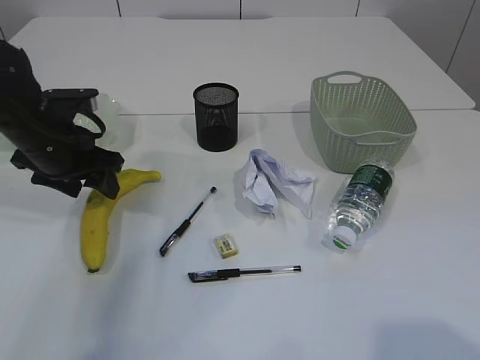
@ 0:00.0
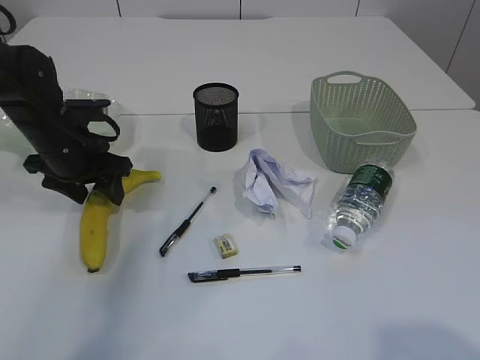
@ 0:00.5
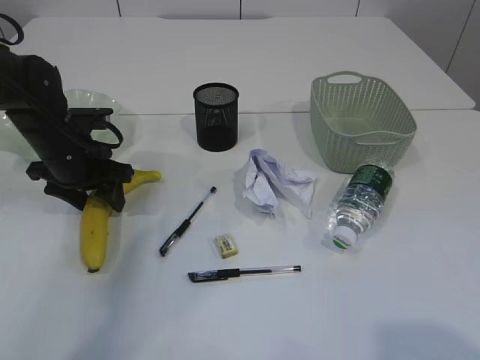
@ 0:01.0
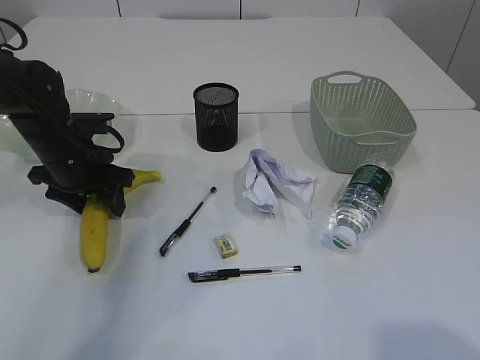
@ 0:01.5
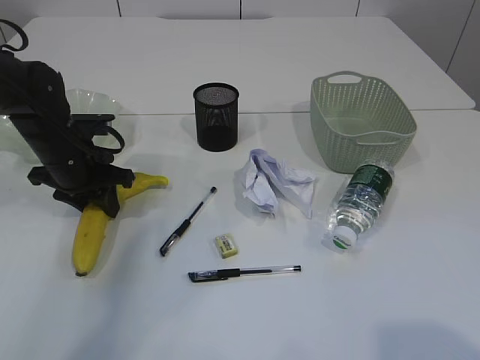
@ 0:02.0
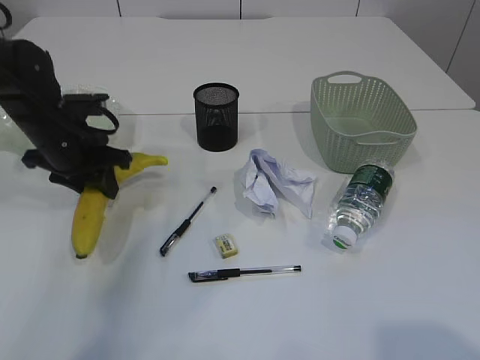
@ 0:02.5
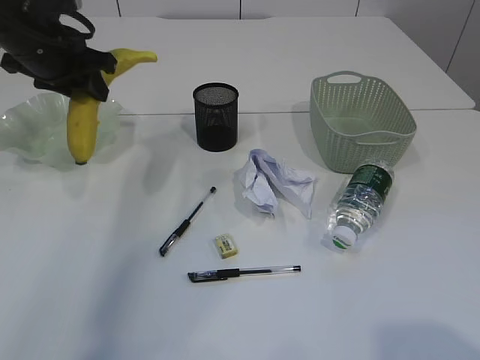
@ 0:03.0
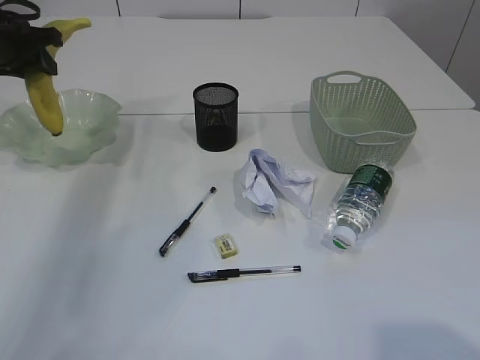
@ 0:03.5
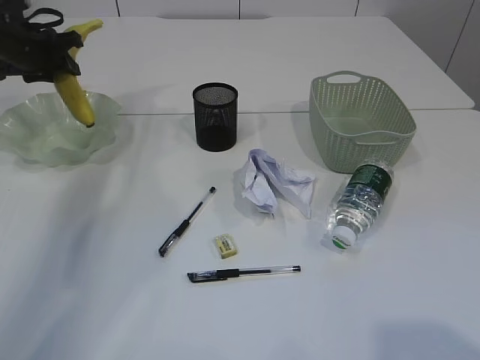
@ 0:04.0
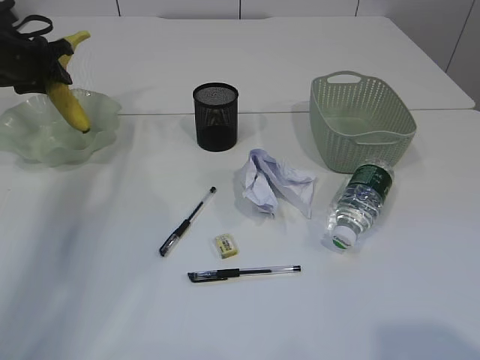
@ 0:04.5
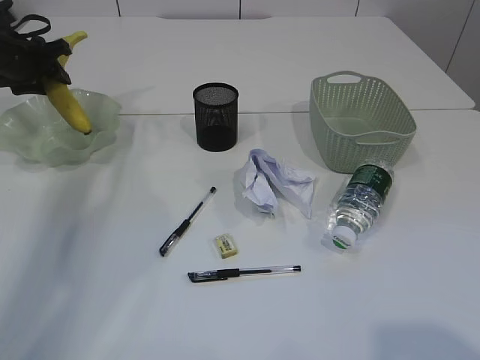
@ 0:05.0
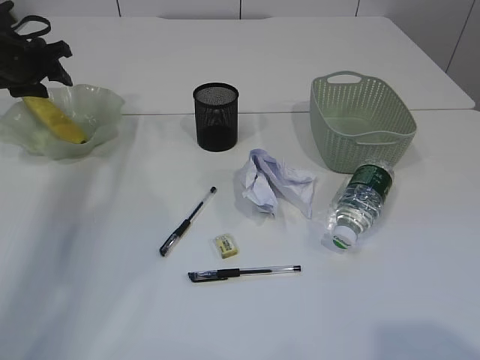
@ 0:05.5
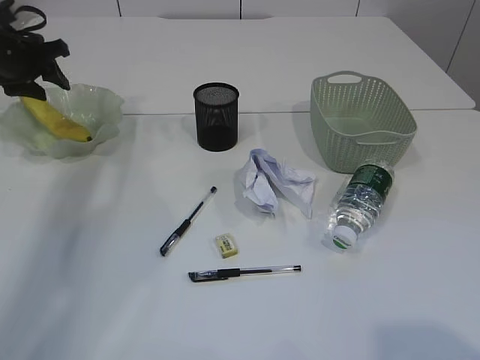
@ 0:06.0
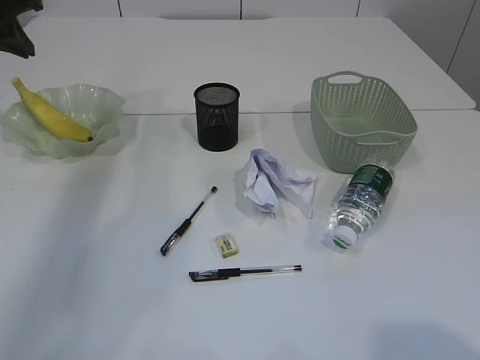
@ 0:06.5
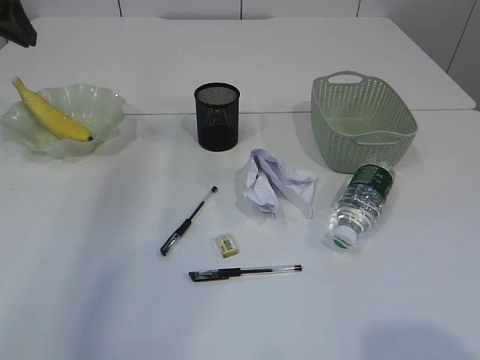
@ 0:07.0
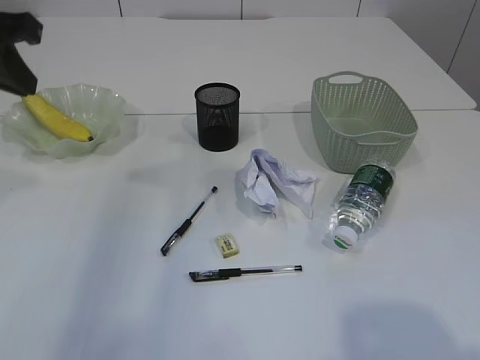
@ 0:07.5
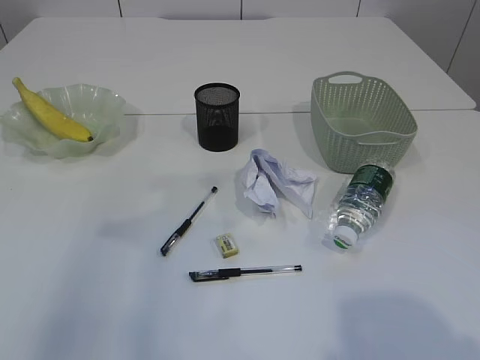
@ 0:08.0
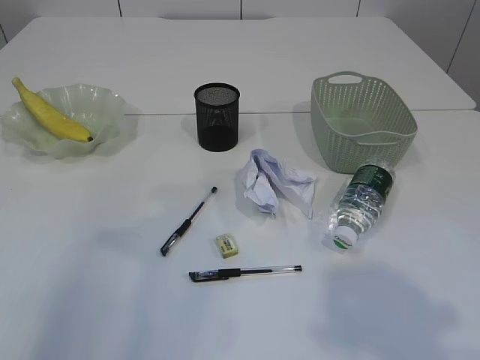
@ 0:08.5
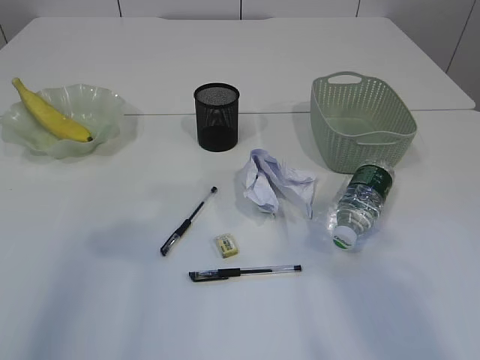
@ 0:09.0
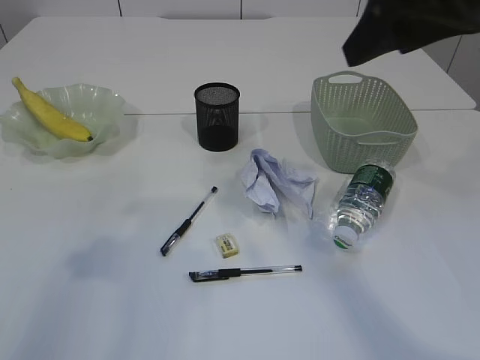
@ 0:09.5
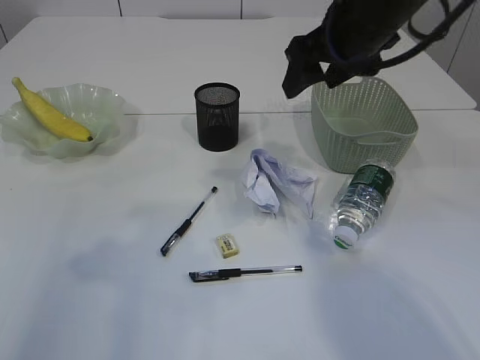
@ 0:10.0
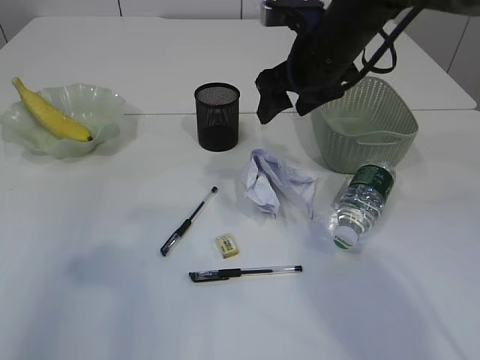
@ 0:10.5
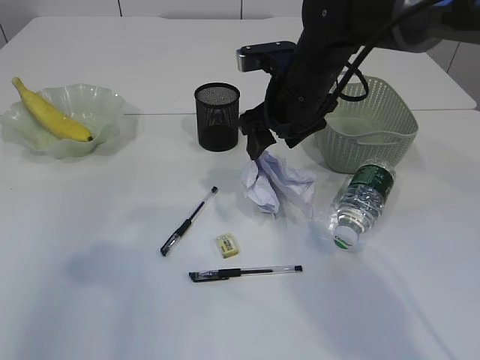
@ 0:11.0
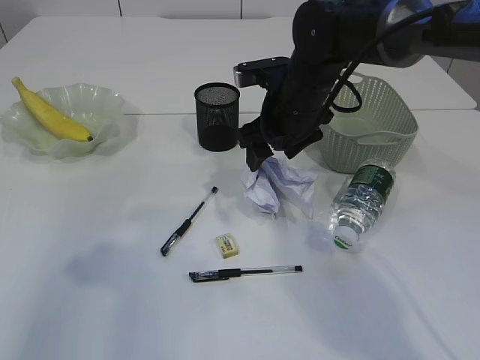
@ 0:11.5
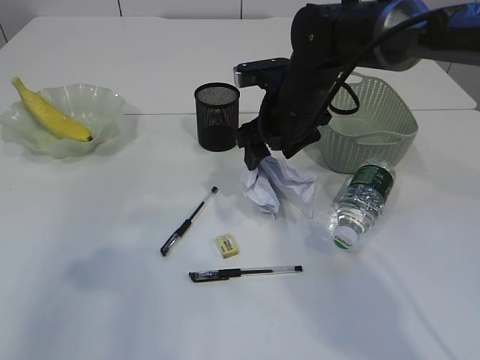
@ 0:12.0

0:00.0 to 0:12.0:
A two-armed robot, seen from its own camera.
Step, 0:03.0 to 0:06.0: Place the banana in the plate.
0:00.0 to 0:02.0: The left gripper shifts by approximately 5 cm, and closes up.
0:02.0 to 0:04.0: The left gripper heads forward, to the left and upward, covering approximately 20 cm.
0:04.0 to 0:06.0: The grippers stay close to where they were, moving slightly.
0:06.0 to 0:08.0: The left gripper moves backward and upward, about 30 cm, and closes up.
0:08.0 to 0:10.0: The right gripper travels forward by approximately 30 cm, while the left gripper moves about 5 cm, and opens its fingers.
0:10.0 to 0:12.0: The right gripper moves downward and to the left, some 15 cm.

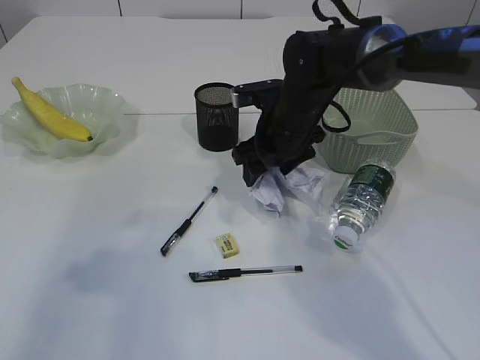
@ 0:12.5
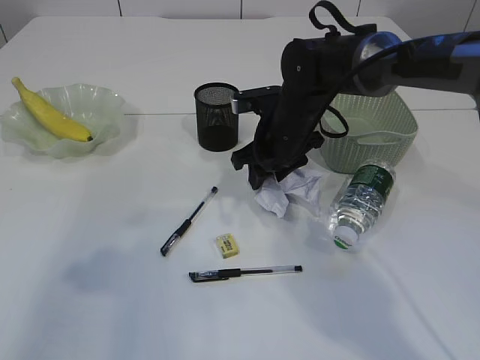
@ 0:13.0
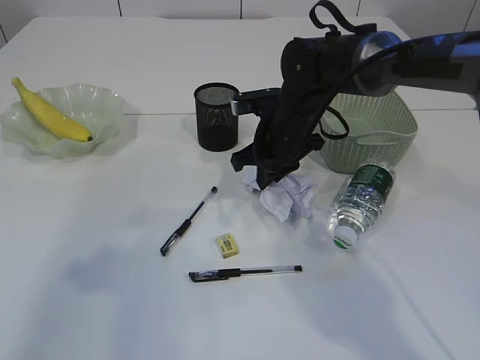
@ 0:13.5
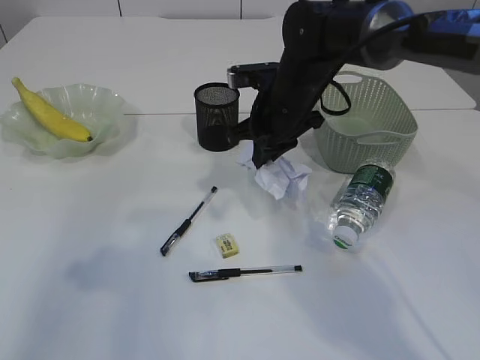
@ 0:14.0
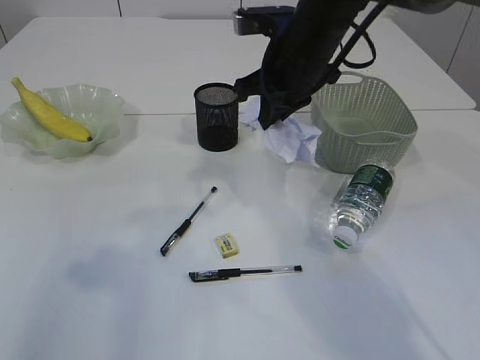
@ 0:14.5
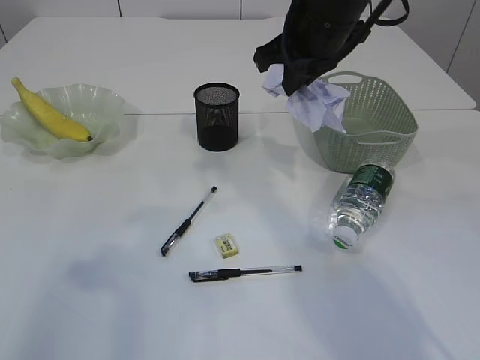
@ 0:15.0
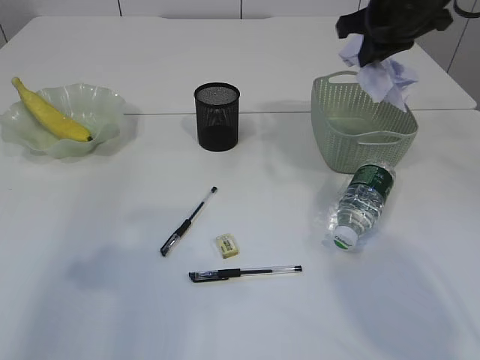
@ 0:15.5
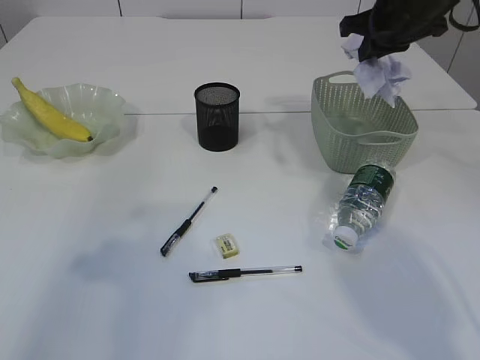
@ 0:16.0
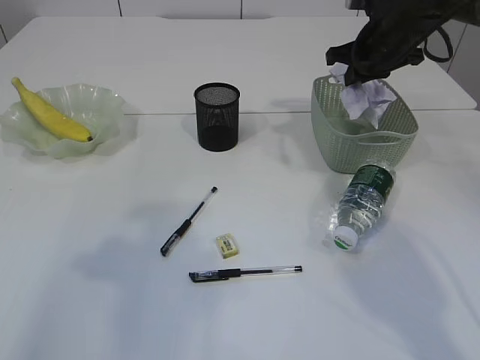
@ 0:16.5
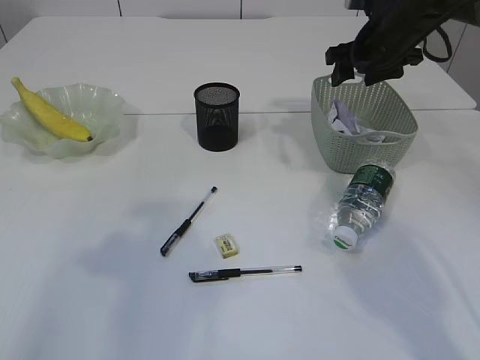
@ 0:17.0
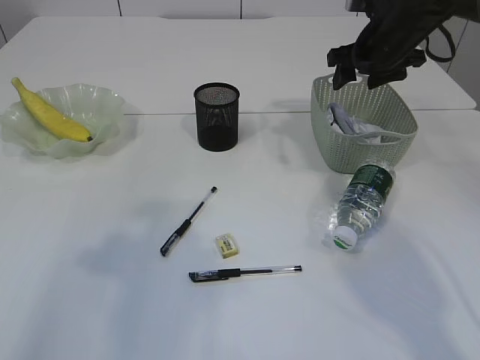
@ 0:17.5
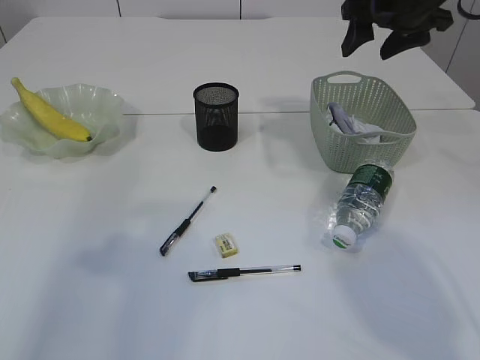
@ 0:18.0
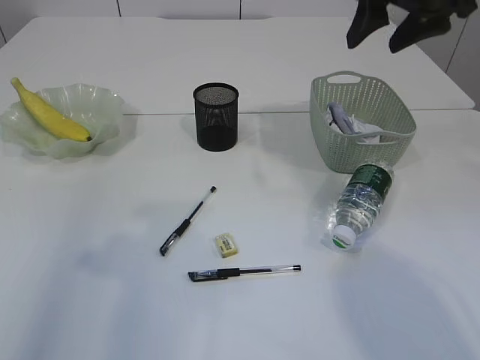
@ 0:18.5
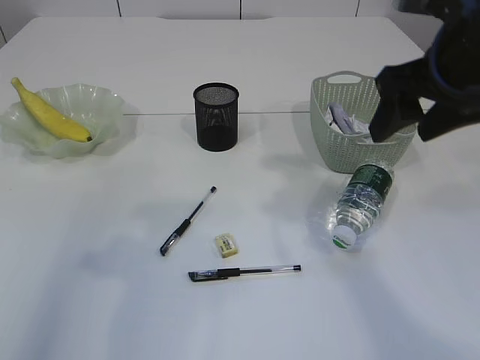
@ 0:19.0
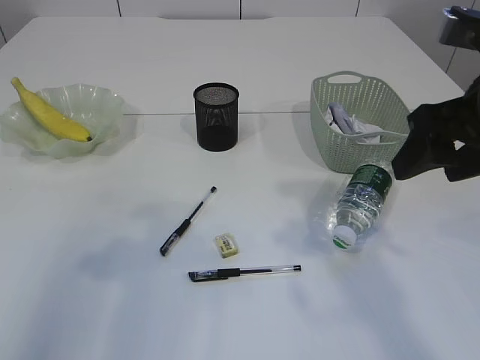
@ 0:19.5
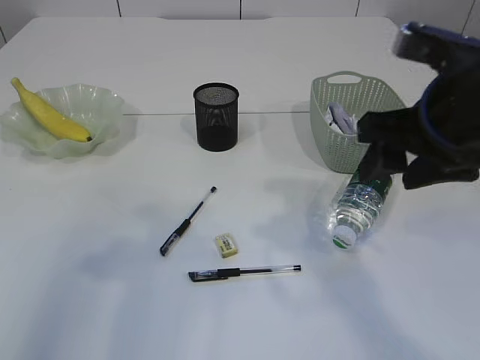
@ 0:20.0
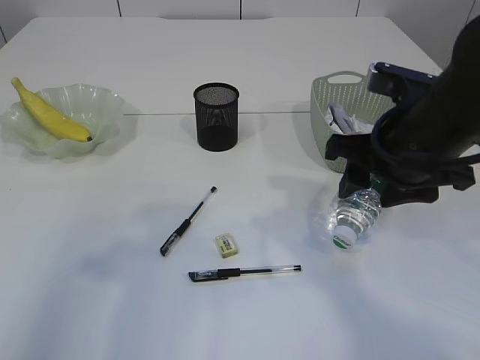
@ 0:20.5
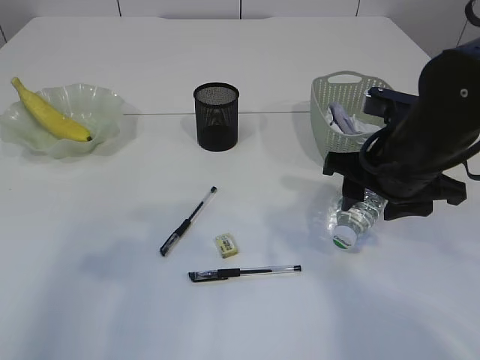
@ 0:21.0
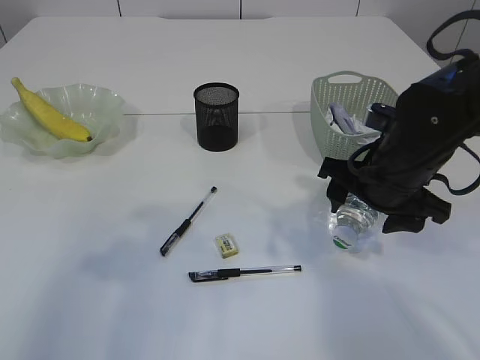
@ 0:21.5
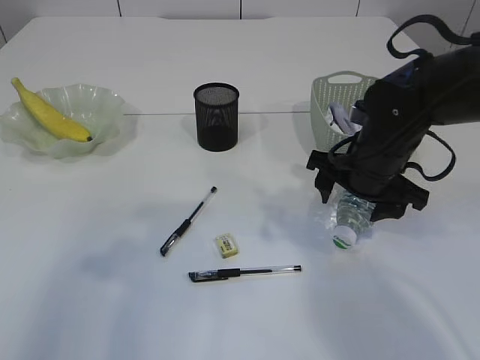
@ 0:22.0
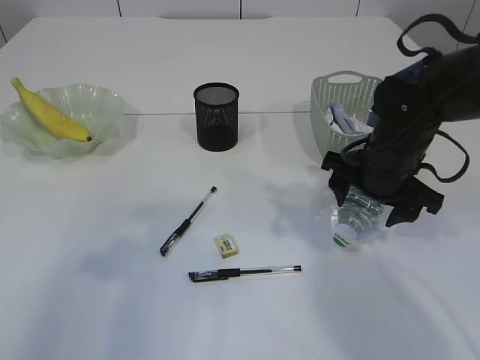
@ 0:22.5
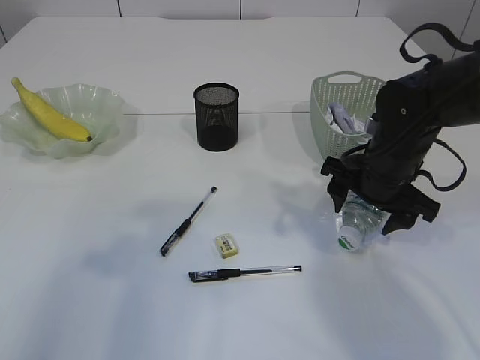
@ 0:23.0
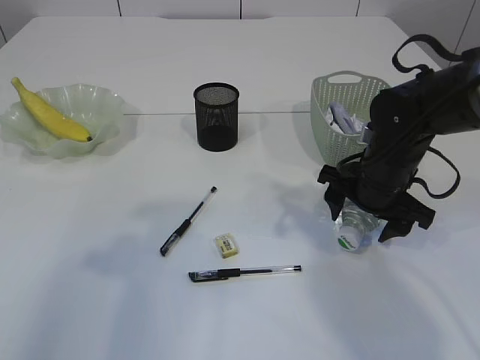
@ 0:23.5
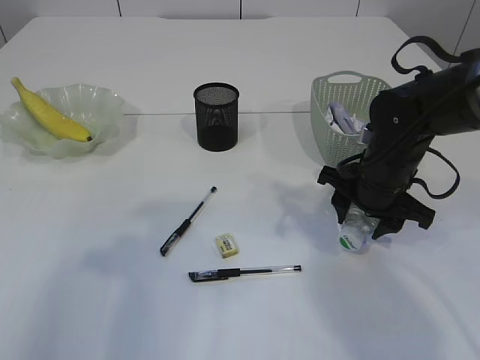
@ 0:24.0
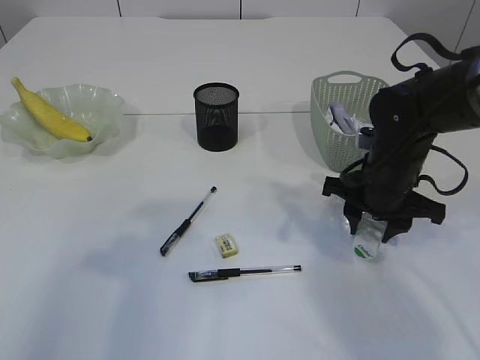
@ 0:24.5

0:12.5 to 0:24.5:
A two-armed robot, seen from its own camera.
Step, 0:14.5 to 0:17.5: Place the waste paper in the basket.
0:12.5 to 0:14.5: The right gripper travels upward by roughly 10 cm, and closes.
0:14.5 to 0:16.5: The right gripper shifts some 15 cm to the right and forward.
0:16.5 to 0:18.5: The right gripper goes approximately 15 cm upward and backward, and opens.
0:18.5 to 0:20.5: The right gripper heads backward and downward, covering some 15 cm.
0:20.5 to 0:22.5: The right gripper is displaced downward and forward by some 10 cm.
0:22.5 to 0:24.5: The right gripper closes its fingers.

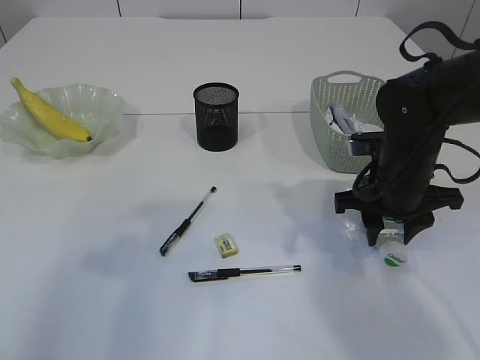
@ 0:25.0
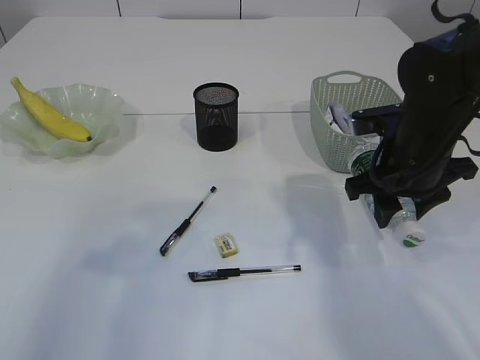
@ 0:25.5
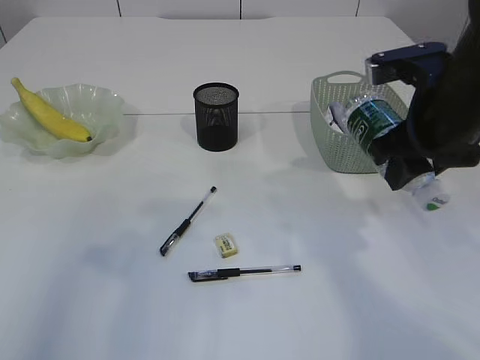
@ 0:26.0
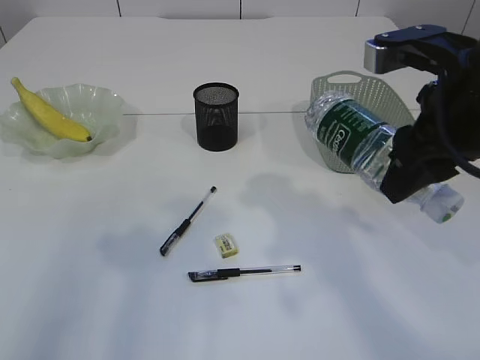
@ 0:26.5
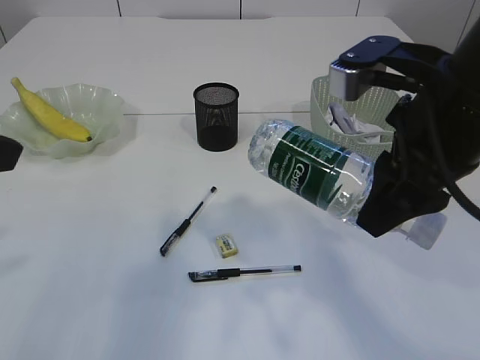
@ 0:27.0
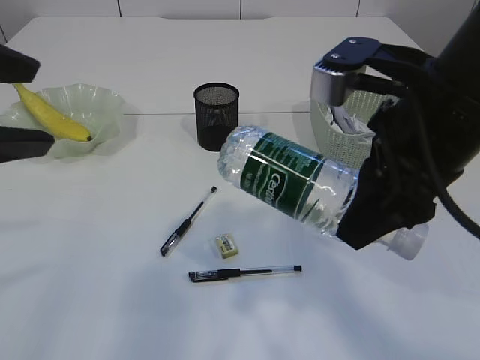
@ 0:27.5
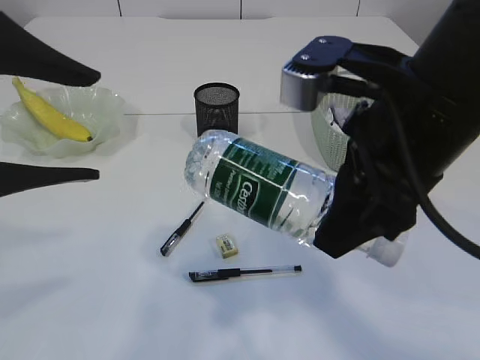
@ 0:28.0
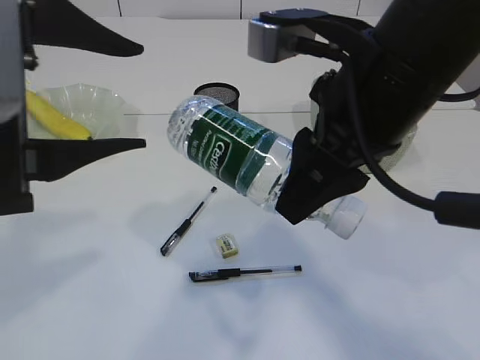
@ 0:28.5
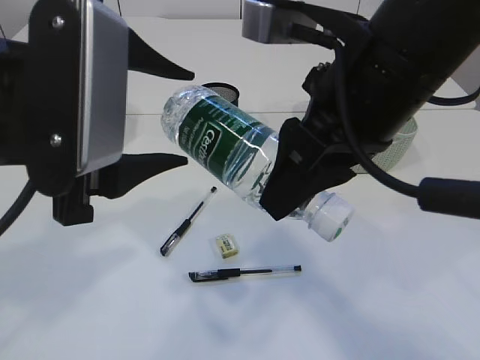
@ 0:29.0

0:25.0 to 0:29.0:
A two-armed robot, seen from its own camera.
0:25.0 to 0:27.0: The right gripper heads upward and backward, covering some 20 cm.
0:27.0 to 0:29.0: The right gripper goes approximately 5 cm to the left, while the left gripper moves to the right, approximately 10 cm.
